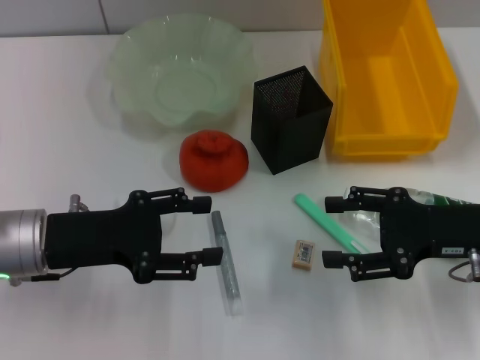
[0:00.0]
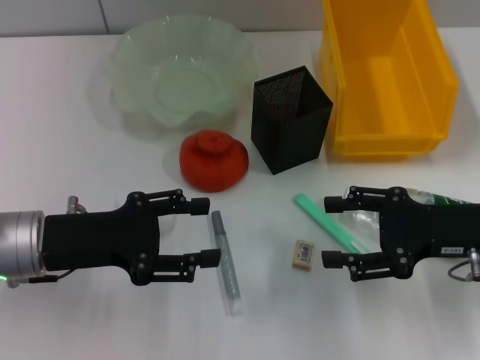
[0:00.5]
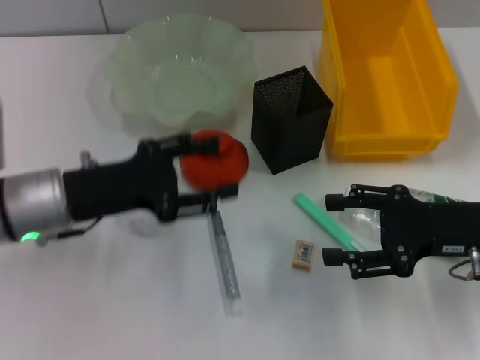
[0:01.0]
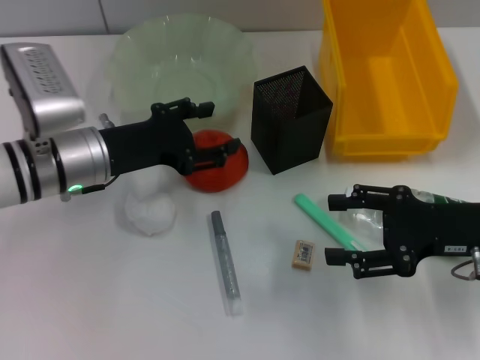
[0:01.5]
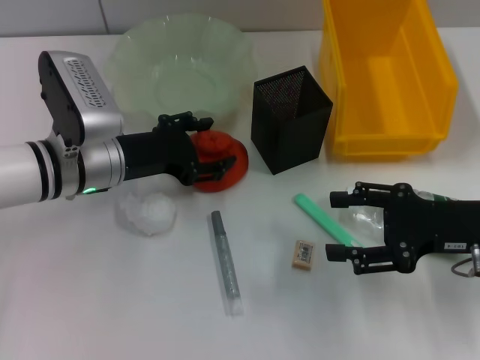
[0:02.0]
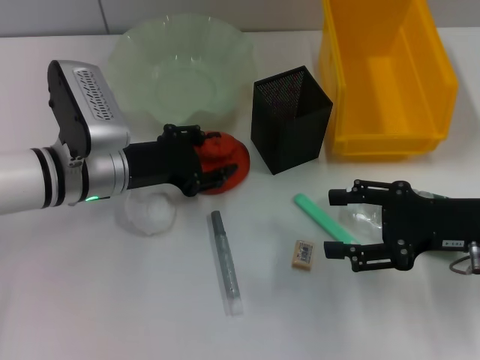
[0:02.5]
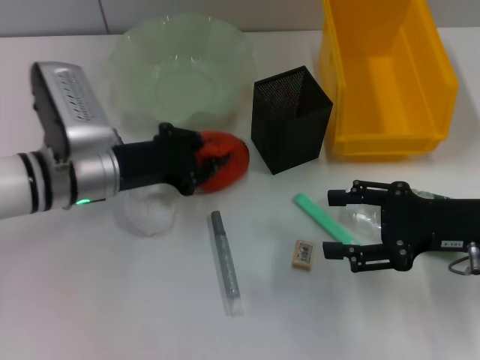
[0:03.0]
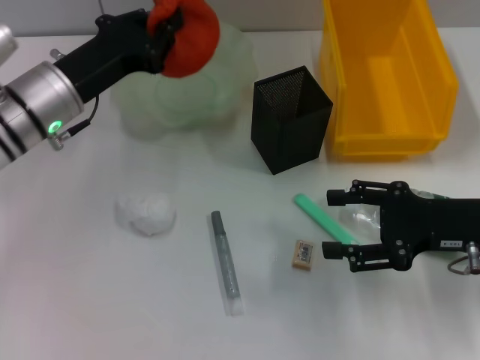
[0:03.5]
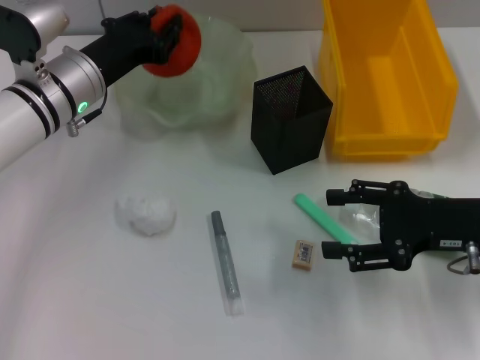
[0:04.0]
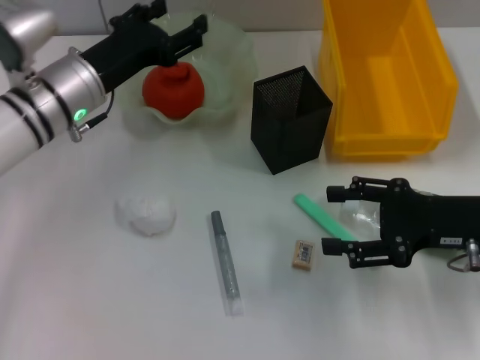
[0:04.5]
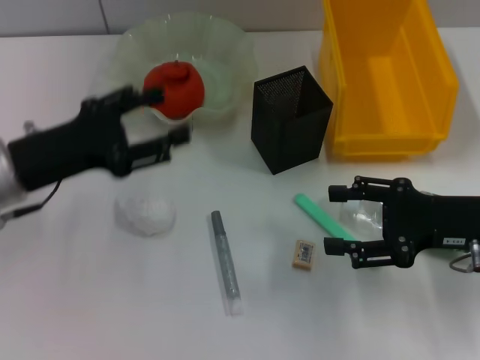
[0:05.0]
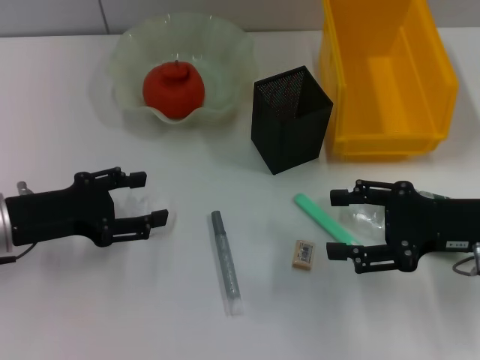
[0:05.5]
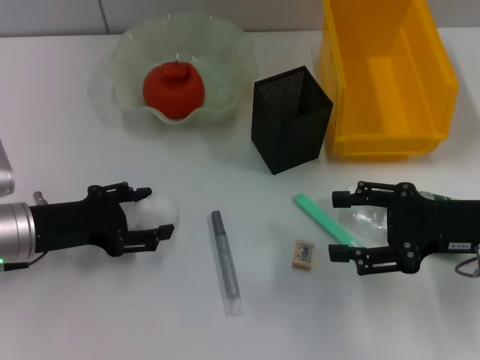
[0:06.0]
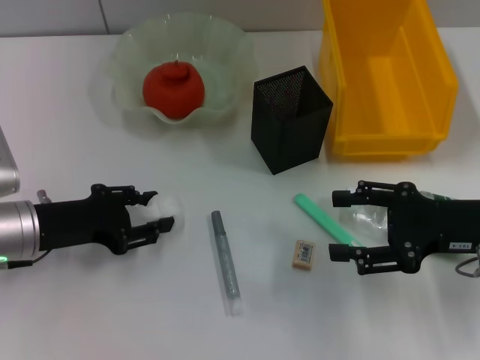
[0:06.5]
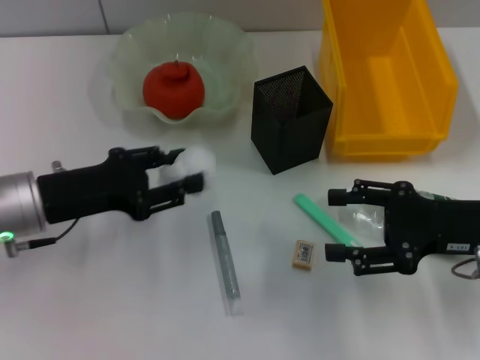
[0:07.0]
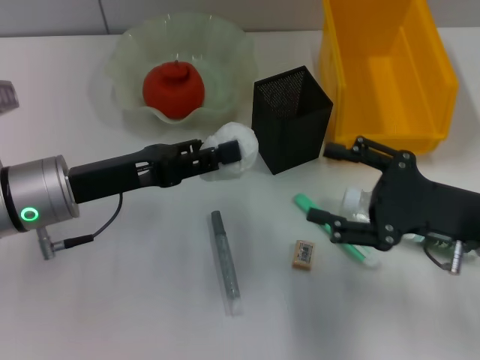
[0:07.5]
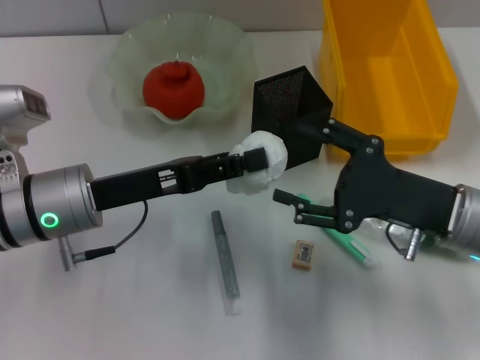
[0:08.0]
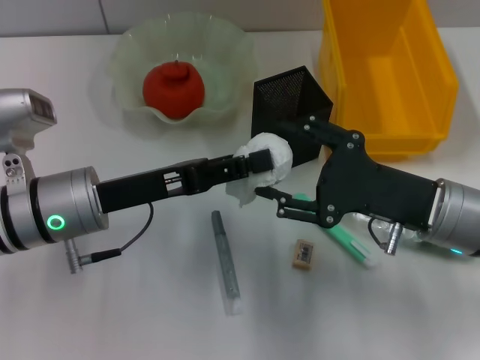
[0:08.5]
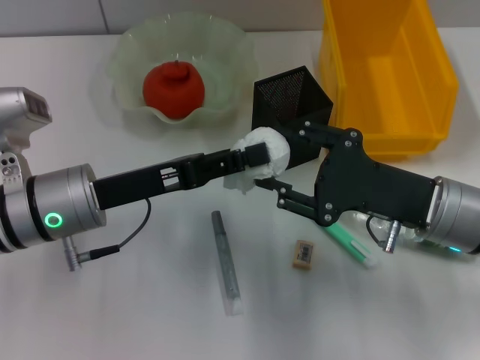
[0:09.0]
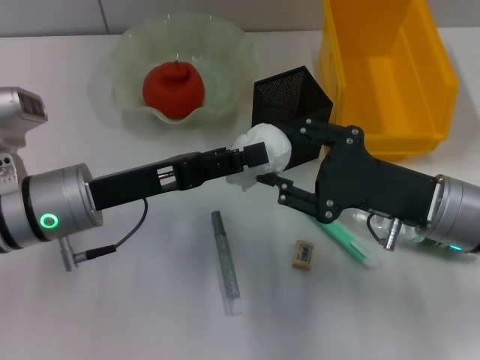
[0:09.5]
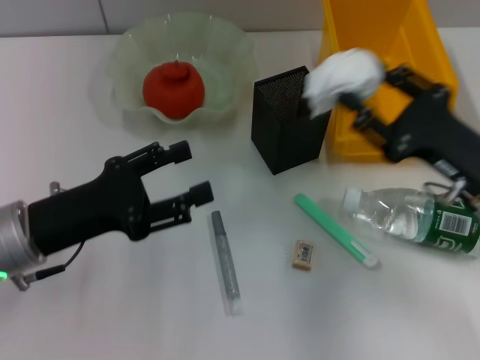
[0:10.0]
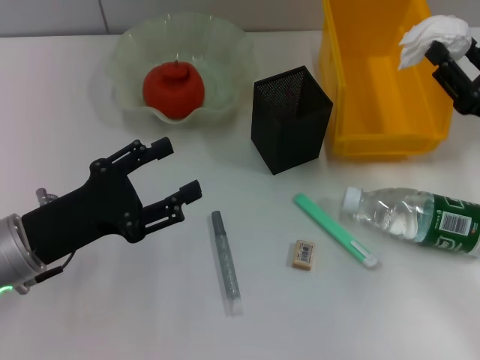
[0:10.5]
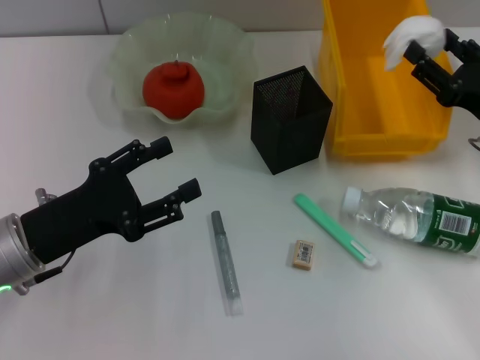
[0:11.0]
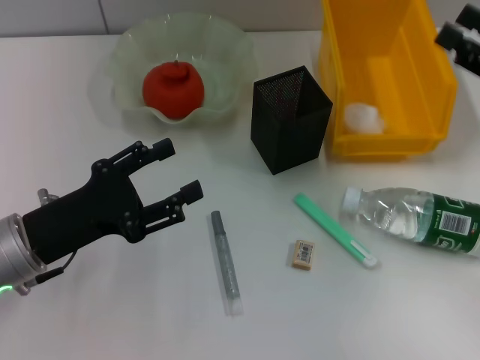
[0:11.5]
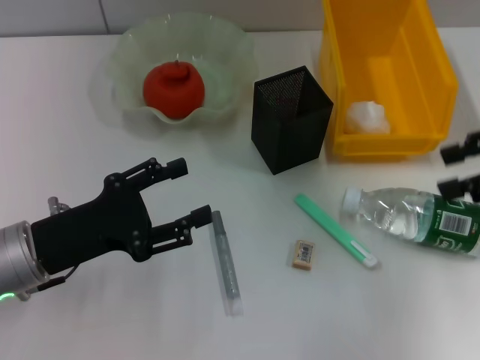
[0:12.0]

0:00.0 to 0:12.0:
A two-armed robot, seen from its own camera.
Step, 0:00.0 to 0:02.5: Grab the orange with the left hand.
Step, 0:03.0 to 0:04.0: Place the orange into the fruit bowl with the left hand.
Step, 0:04.5 to 0:06.0: Grab the paper ball with the left hand.
Step, 0:06.5 to 0:09.5: Pass the paper ball from the left hand to the right hand.
Step, 0:10.0 to 0:12.0: Place the paper ball into the trash can with the right hand.
0:00.0 to 0:02.0: The left gripper shifts some 10 cm forward and to the right.
0:02.0 to 0:04.0: The left gripper travels forward by about 5 cm, and closes.
0:04.0 to 0:06.0: The left gripper shifts some 15 cm backward and to the left, and opens up.
0:06.0 to 0:08.0: The right gripper shifts about 5 cm to the left. The left gripper travels to the right by roughly 5 cm, and closes its fingers.
0:08.0 to 0:10.0: The left gripper shifts by about 5 cm, and opens up; the right gripper closes its fingers.
0:10.0 to 0:12.0: The right gripper is displaced upward and to the right by roughly 15 cm.

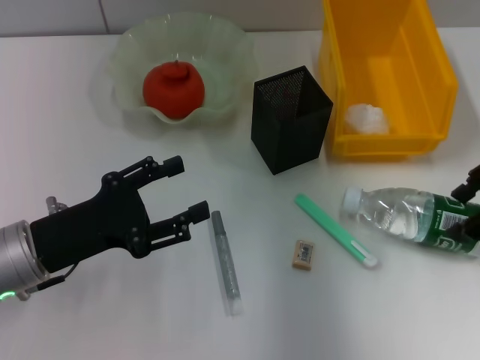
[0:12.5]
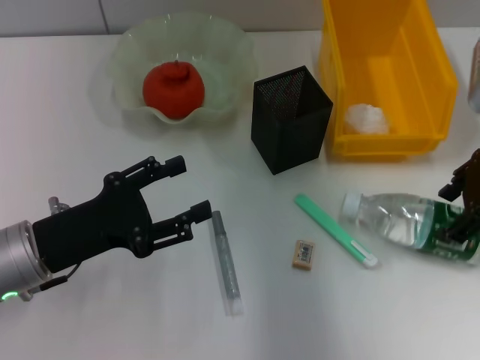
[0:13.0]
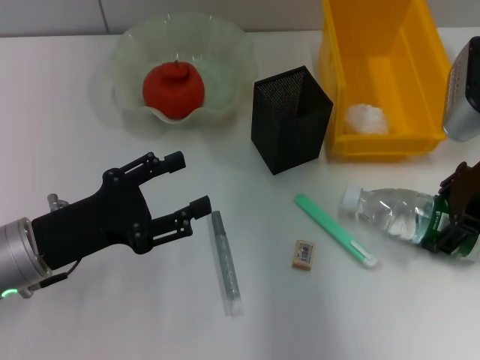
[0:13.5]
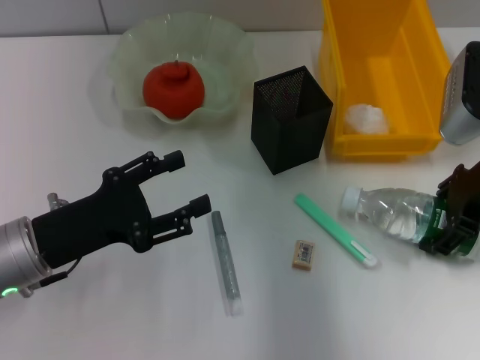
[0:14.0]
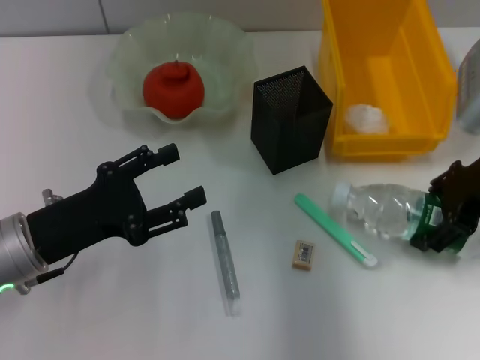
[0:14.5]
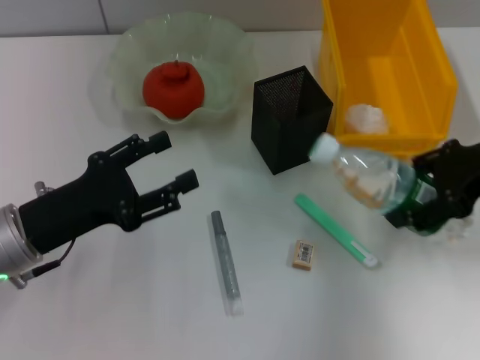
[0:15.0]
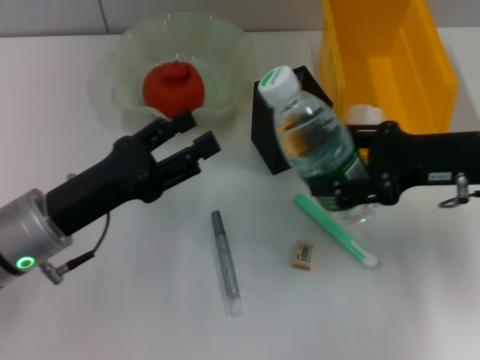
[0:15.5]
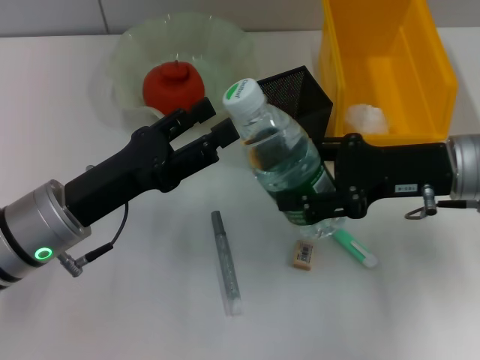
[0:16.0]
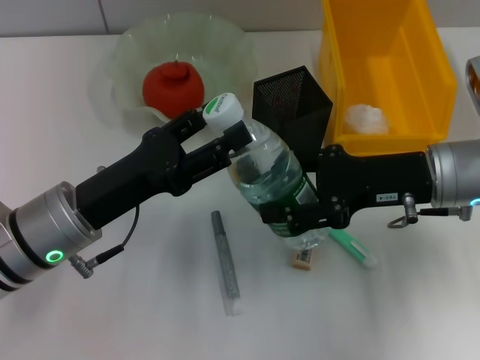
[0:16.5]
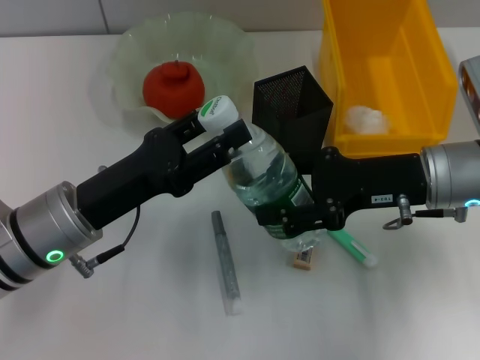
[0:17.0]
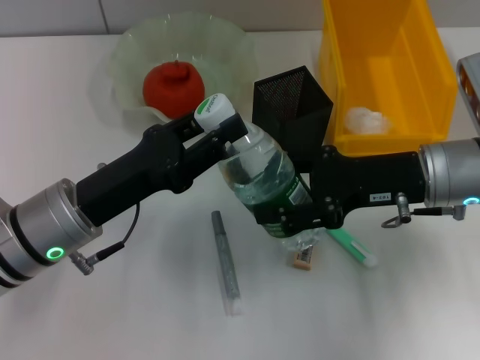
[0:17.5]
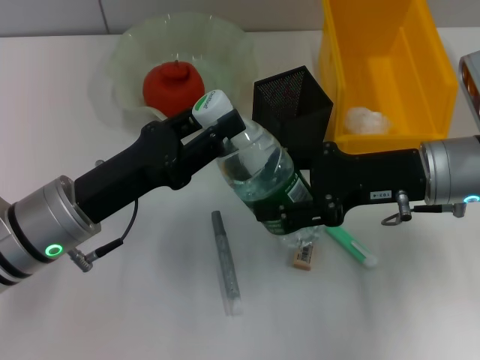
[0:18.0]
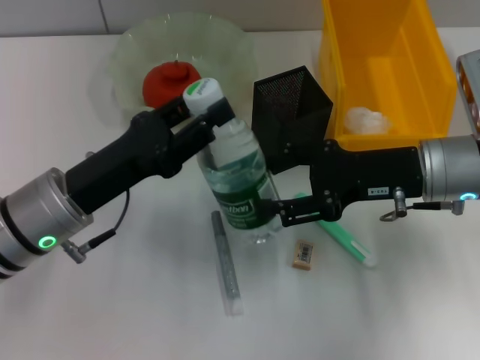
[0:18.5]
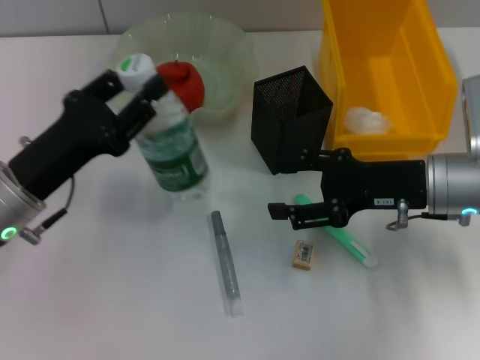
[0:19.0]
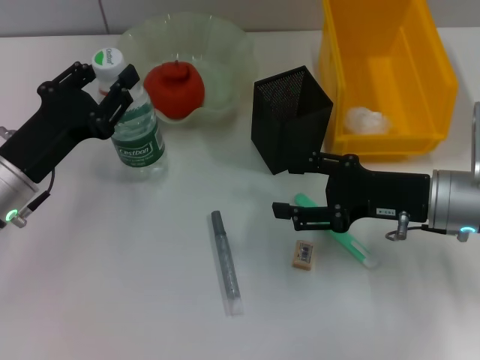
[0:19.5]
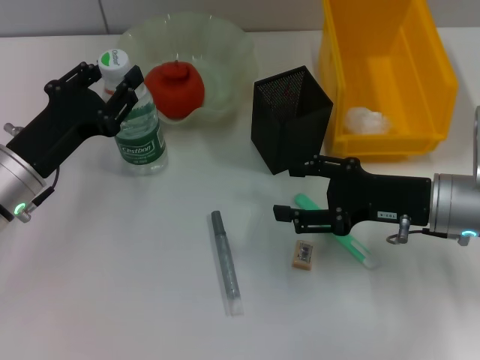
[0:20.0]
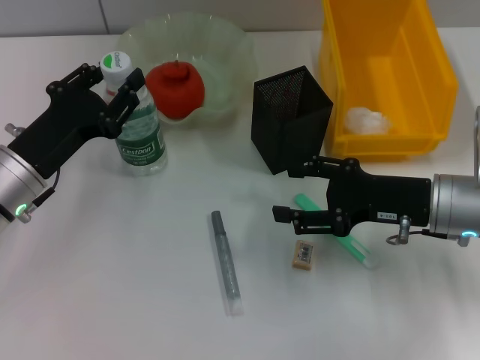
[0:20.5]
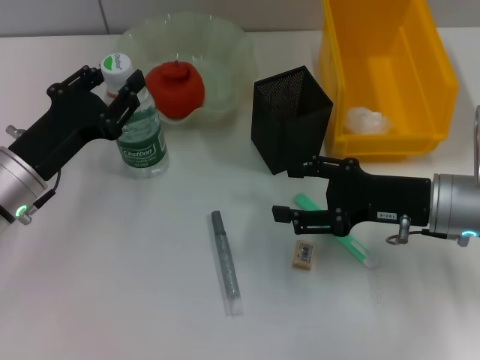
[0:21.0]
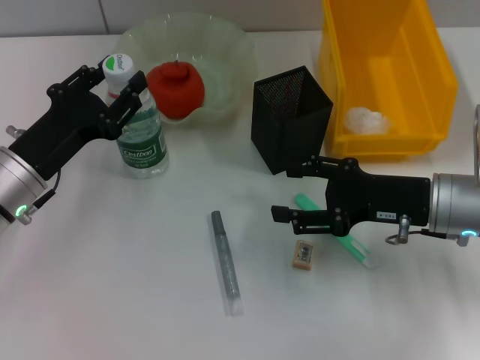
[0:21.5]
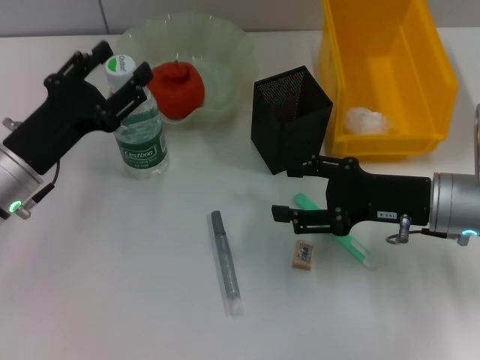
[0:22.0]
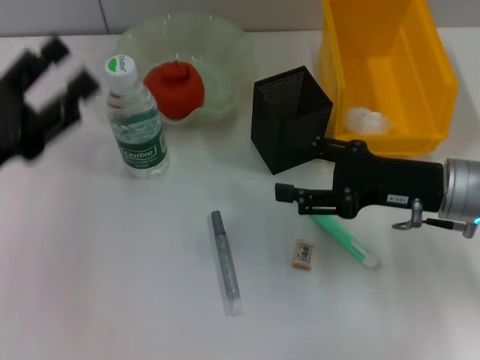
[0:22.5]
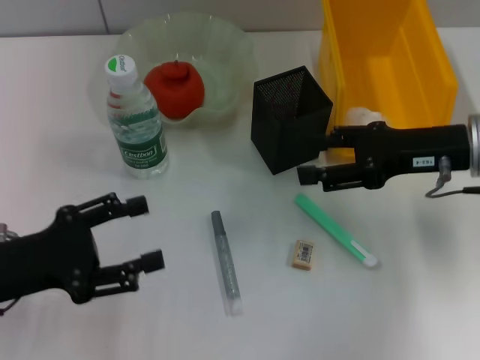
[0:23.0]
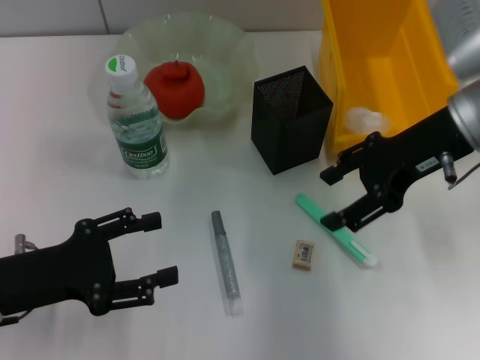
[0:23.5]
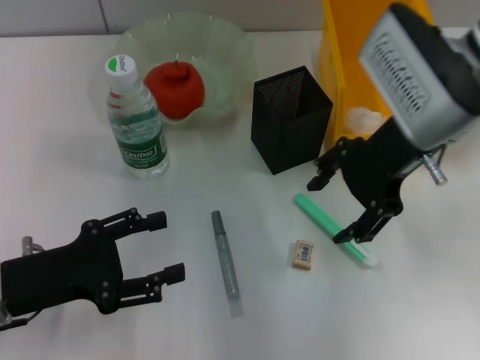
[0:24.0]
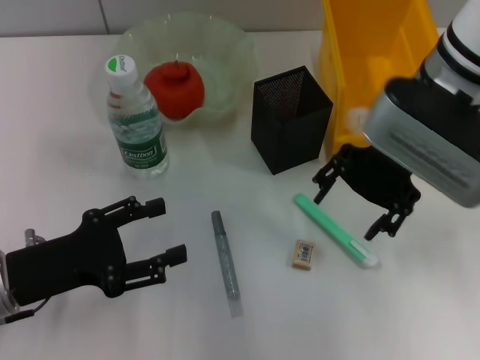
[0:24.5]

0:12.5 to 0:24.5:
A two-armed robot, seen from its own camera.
Step, 0:12.5 to 0:14.0: Grab the water bottle with the right hand.
Step, 0:14.5 to 0:18.5: Pass the water bottle from the right hand to the left hand.
Step, 0:19.0 to 0:21.5: Place the water bottle on the table with the left hand.
0:12.5 to 0:14.5: The grippers make only small movements.
0:14.5 to 0:16.5: The right gripper heads to the left, covering roughly 5 cm. Meanwhile the left gripper changes place by some 5 cm.
0:16.5 to 0:18.5: The left gripper closes its fingers.
0:18.5 to 0:20.5: The left gripper shifts by about 5 cm. The right gripper moves about 5 cm.
0:20.5 to 0:22.5: The left gripper travels backward by some 5 cm, and opens its fingers.
0:22.5 to 0:24.5: The right gripper is displaced upward and to the left by approximately 15 cm; the left gripper shifts some 5 cm downward.

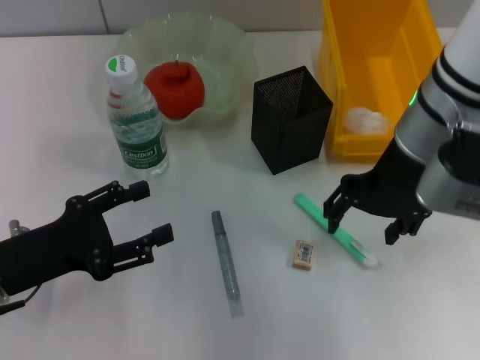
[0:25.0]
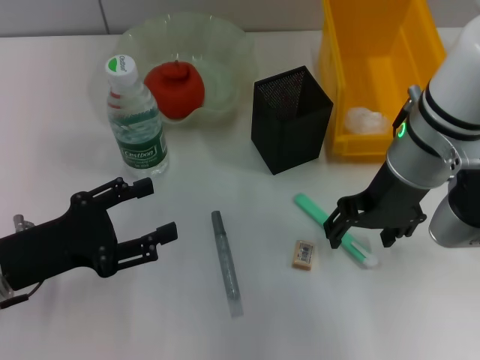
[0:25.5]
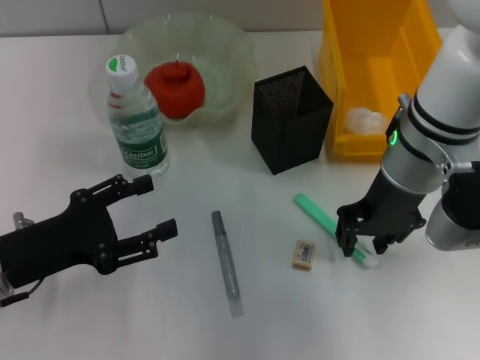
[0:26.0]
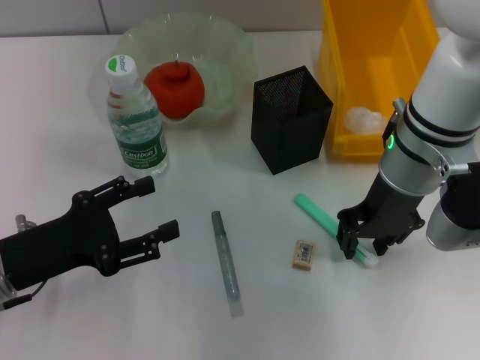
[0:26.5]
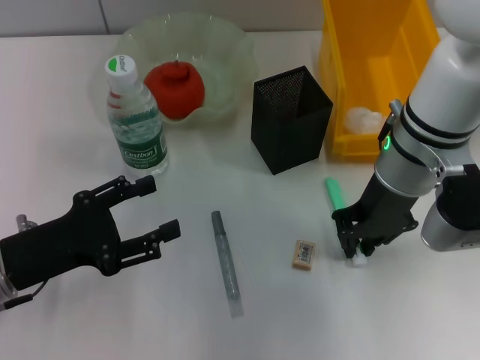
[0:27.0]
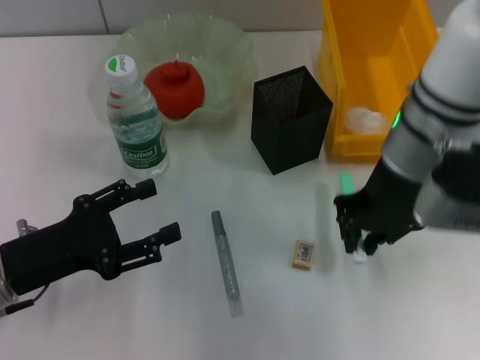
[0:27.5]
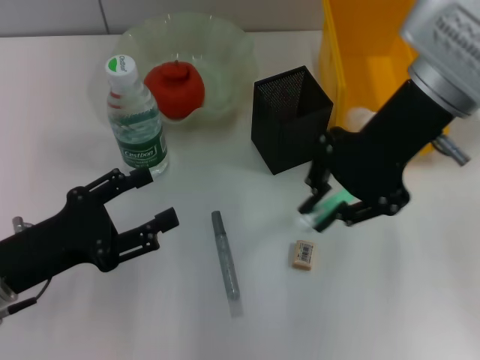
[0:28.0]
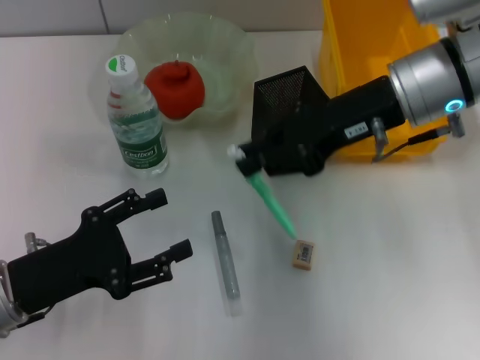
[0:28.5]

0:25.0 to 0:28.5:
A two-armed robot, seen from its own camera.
Step, 0:25.0 to 0:27.0: Grab the blue utility knife with the right hand.
0:25.0 to 0:27.0: The right gripper closes up.
